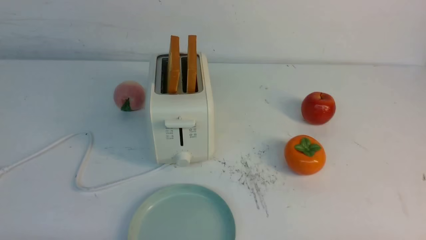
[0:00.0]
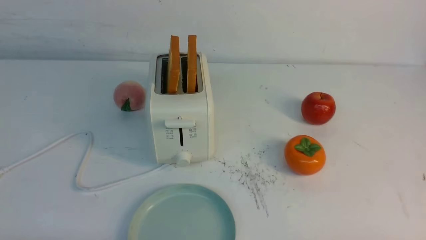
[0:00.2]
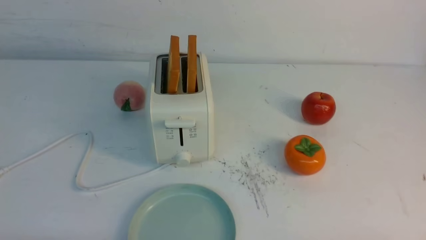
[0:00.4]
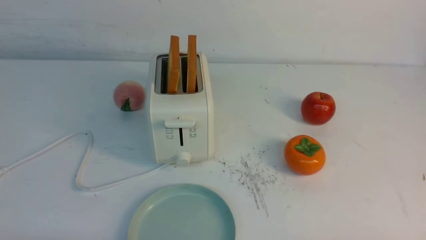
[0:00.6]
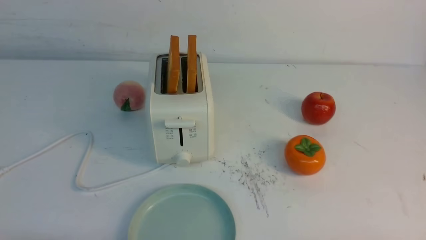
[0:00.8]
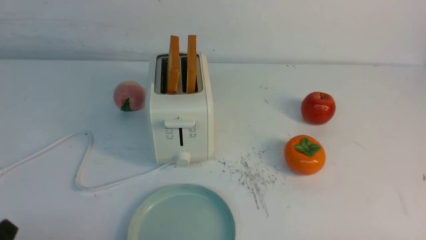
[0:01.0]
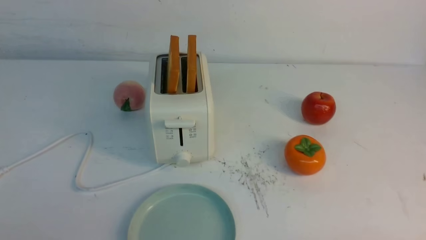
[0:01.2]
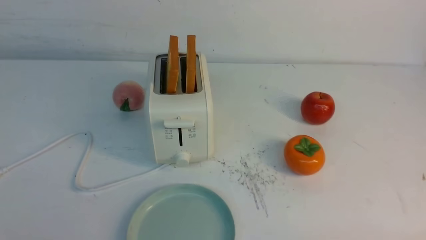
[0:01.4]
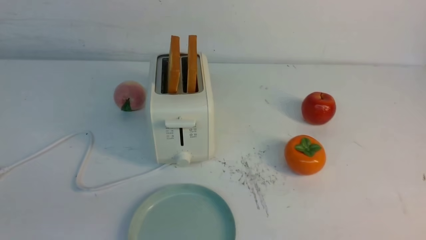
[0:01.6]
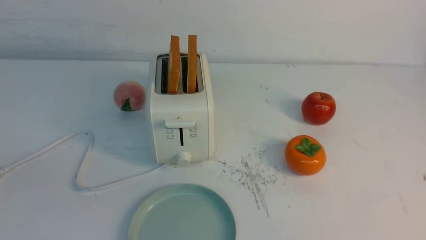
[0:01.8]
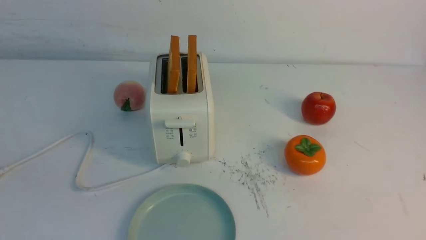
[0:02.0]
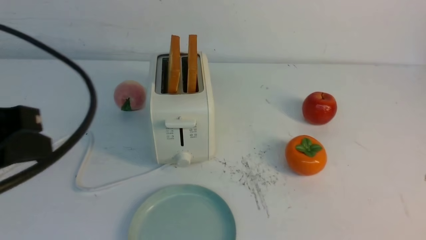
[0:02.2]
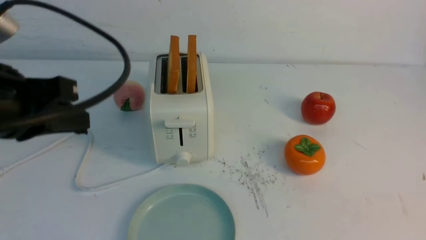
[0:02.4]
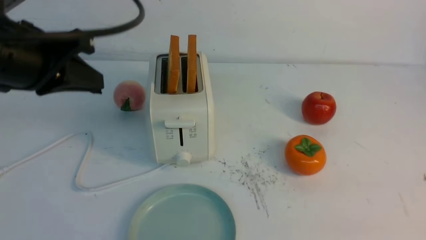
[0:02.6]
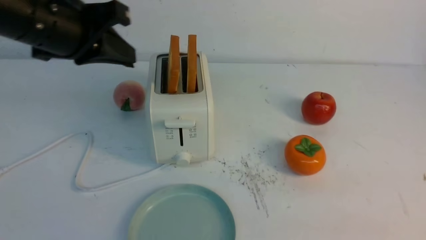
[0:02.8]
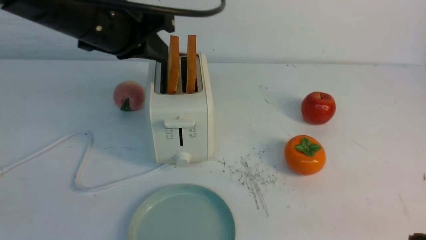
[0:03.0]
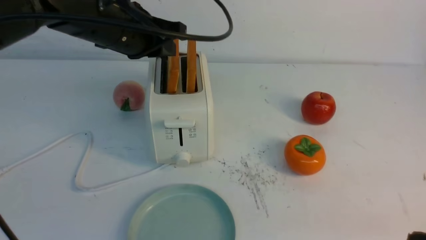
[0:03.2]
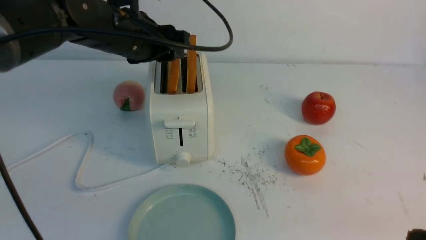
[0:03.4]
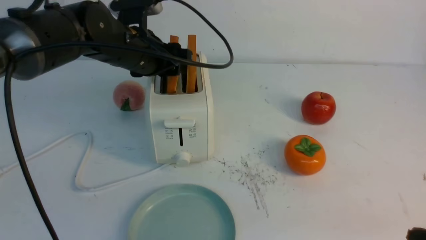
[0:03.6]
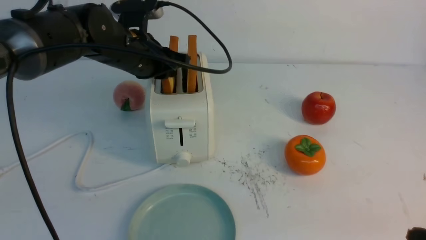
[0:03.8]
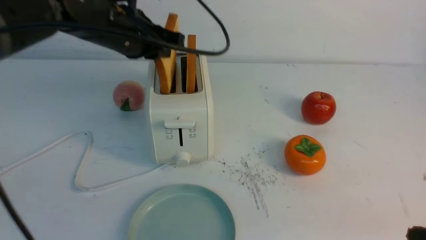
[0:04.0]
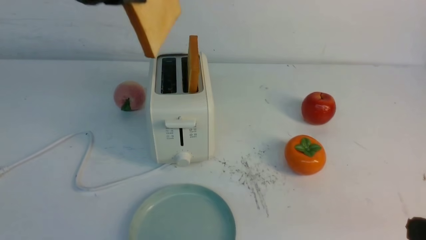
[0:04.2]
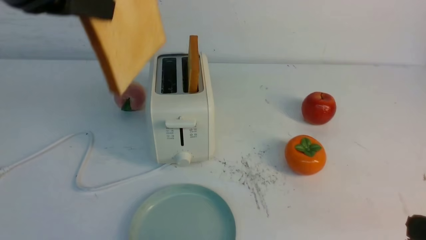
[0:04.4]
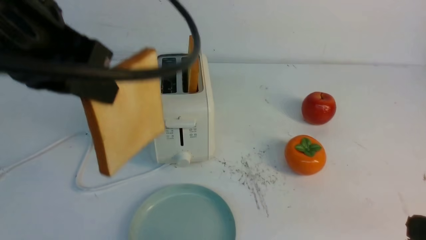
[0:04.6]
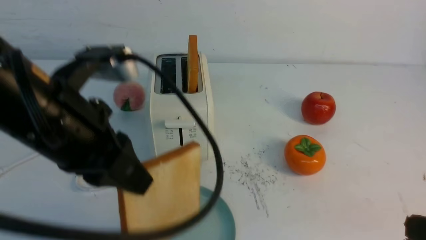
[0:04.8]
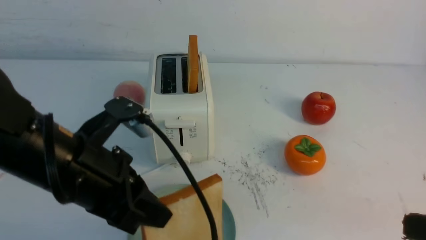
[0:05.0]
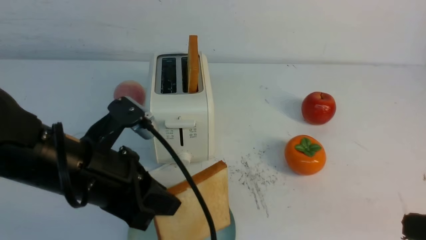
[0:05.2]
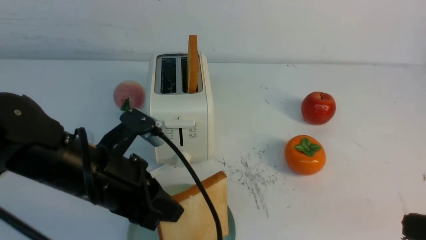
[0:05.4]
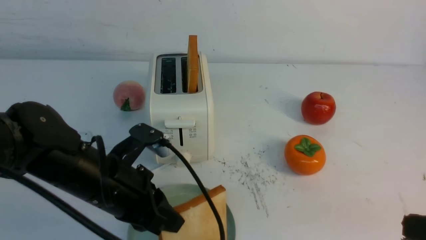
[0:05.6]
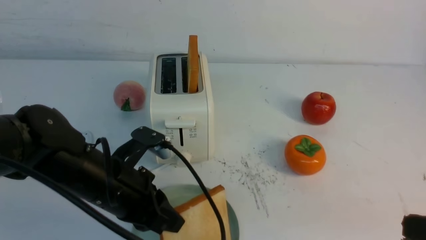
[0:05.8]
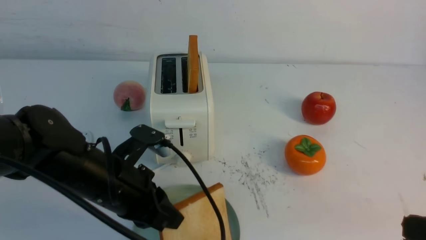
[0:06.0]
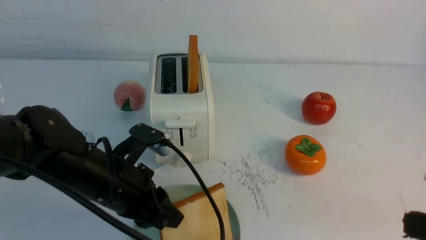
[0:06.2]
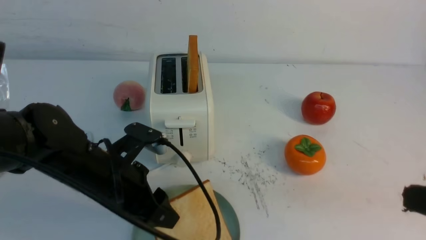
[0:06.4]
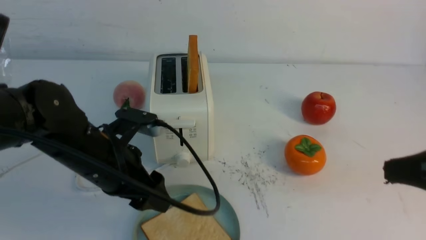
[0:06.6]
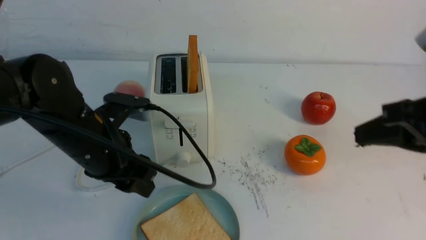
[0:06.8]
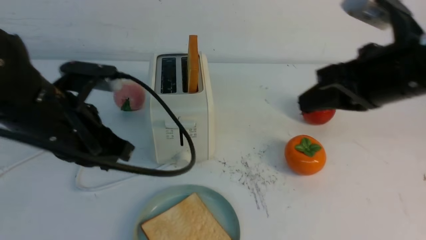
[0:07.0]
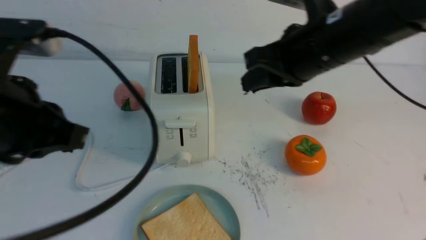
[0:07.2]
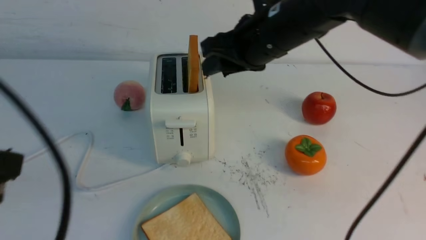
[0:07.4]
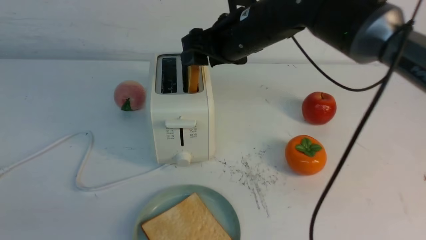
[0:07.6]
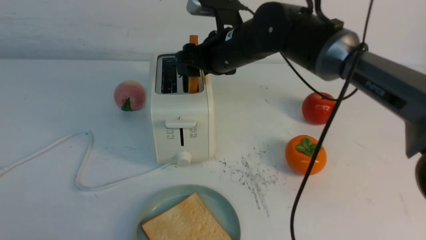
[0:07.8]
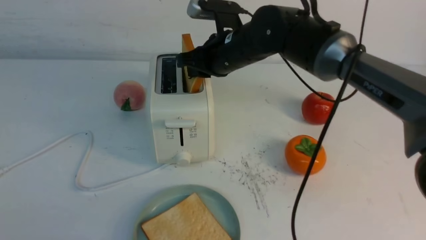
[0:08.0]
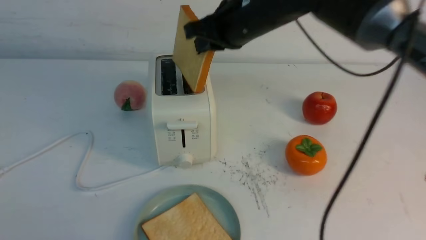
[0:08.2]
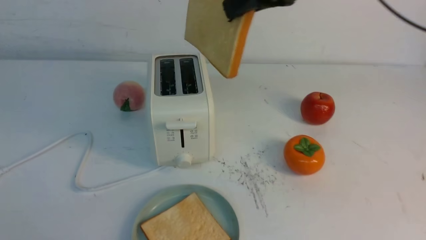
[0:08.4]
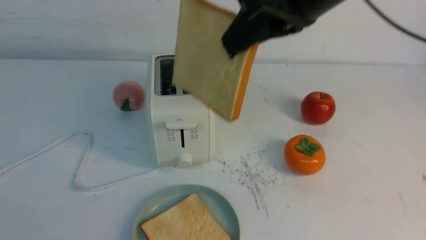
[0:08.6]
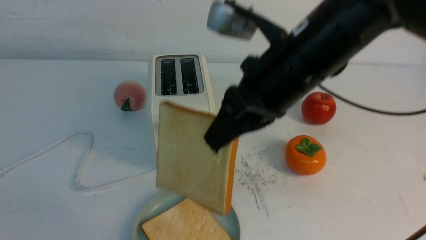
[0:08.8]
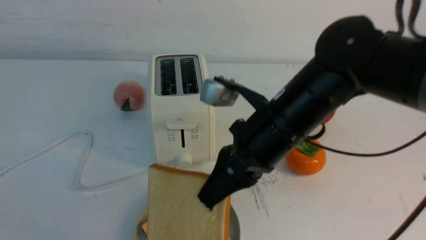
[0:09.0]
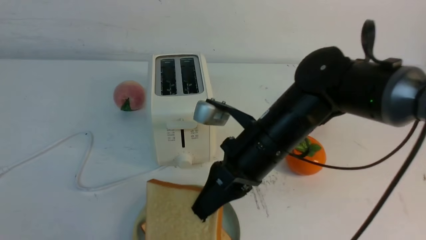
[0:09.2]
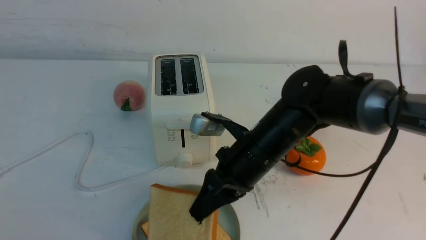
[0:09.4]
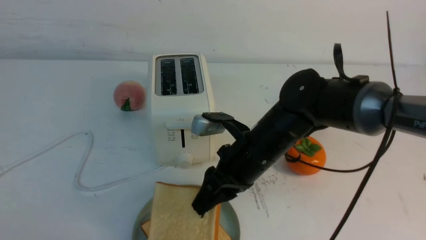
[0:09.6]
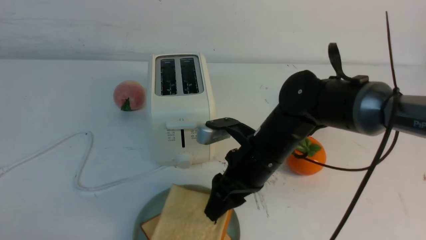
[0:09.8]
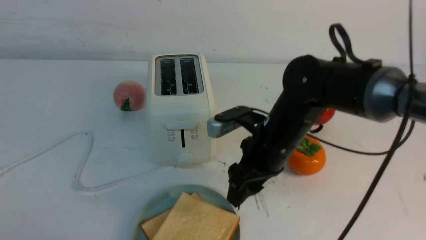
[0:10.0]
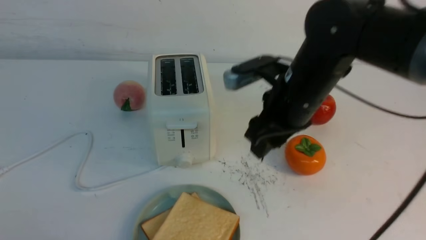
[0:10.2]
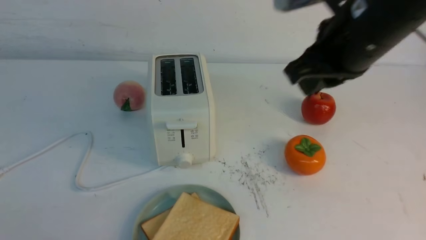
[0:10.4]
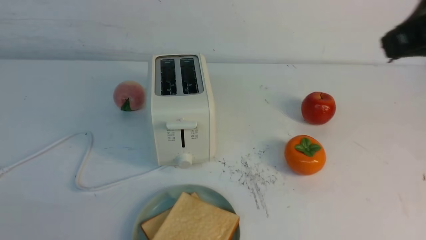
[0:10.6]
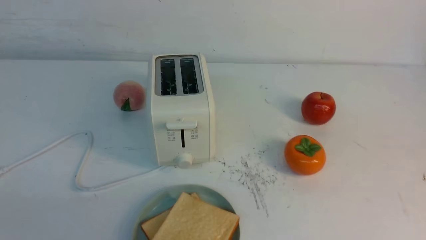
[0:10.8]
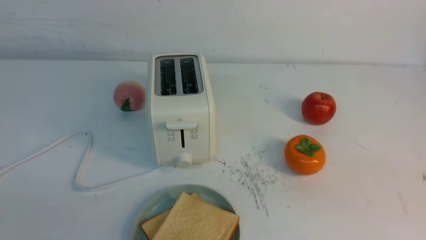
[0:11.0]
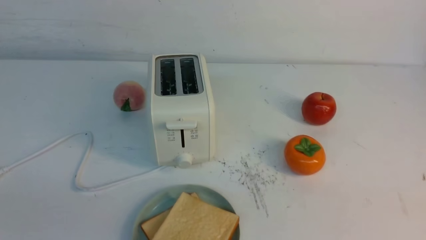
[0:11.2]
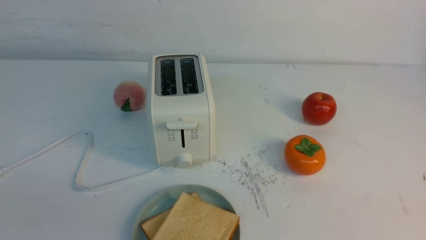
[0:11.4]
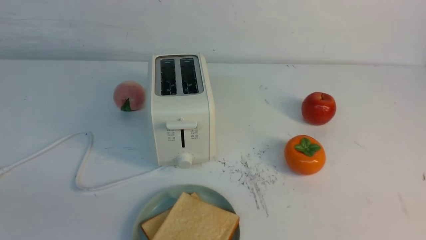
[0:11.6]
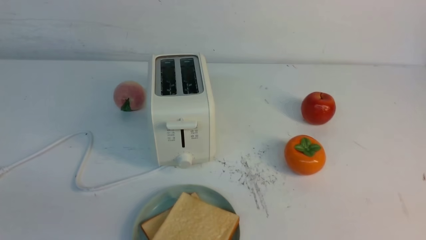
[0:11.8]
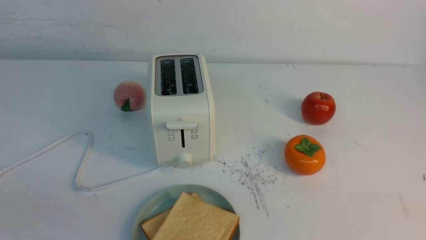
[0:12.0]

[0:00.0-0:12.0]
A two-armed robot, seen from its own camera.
Task of the whole recording: take toasted bread from bread machine on white table place on plate.
Step, 0:00.0 to 0:04.0: use the left arm to take out a slice of bread.
Step, 0:04.2 to 0:06.8: use the left arm to put a slice of bread into the empty plate.
Step, 0:07.0 to 0:08.2: use the right arm to take out a slice of bread.
Step, 0:08.4 to 0:10.0: use the right arm to put a slice of bread into the plate.
0:01.6 to 0:03.0: The right gripper is displaced upward by approximately 10 cm, and closes its fingers. The left gripper is displaced forward by roughly 30 cm.
0:03.0 to 0:04.4: The left gripper goes about 10 cm backward and upward, and opens and closes again.
0:04.4 to 0:06.0: The left gripper is displaced downward by approximately 25 cm.
0:06.0 to 0:07.6: The right gripper goes roughly 40 cm forward and to the left, and opens its fingers. The left gripper moves backward, upward and to the left, approximately 25 cm, and closes its fingers.
0:07.6 to 0:09.0: The right gripper goes approximately 15 cm backward, and closes up.
0:09.0 to 0:10.4: The right gripper travels upward and to the right by approximately 15 cm, and opens, then closes again.
0:10.4 to 0:12.0: The right gripper moves backward, downward and to the right, approximately 30 cm.

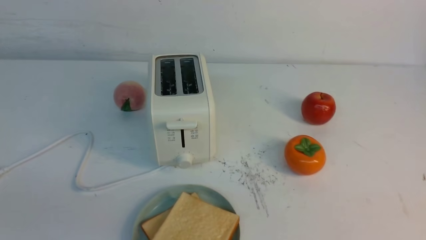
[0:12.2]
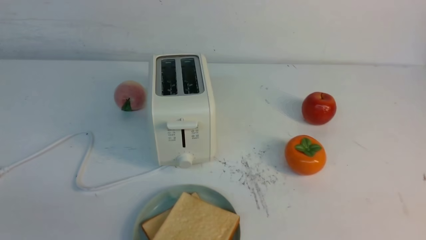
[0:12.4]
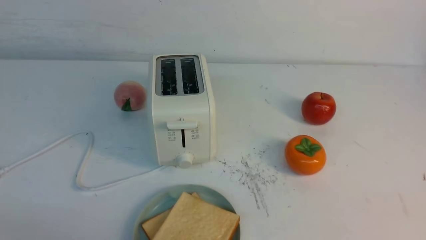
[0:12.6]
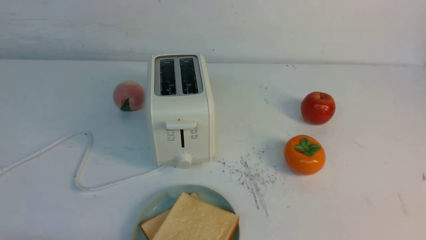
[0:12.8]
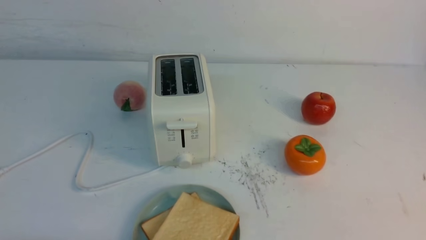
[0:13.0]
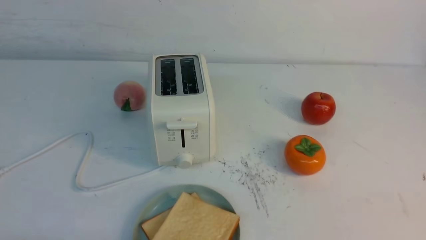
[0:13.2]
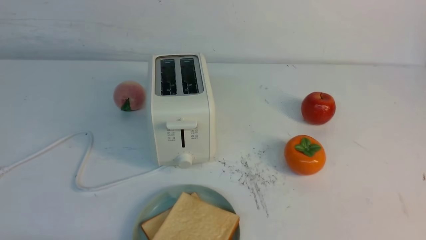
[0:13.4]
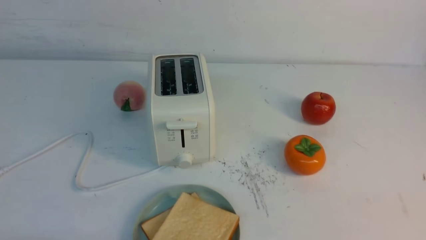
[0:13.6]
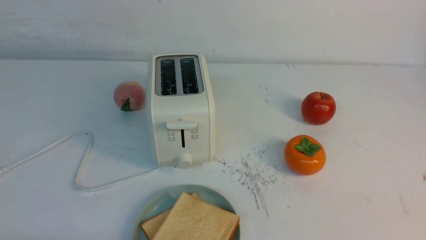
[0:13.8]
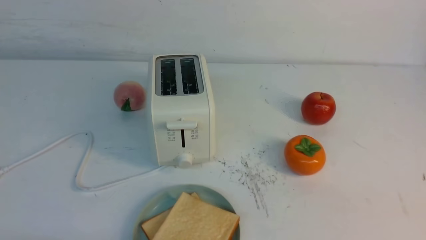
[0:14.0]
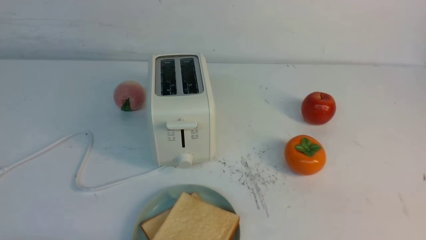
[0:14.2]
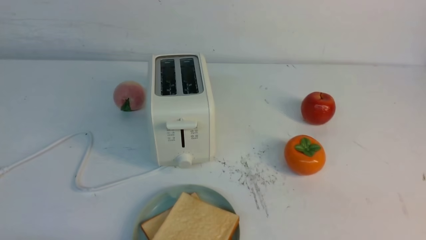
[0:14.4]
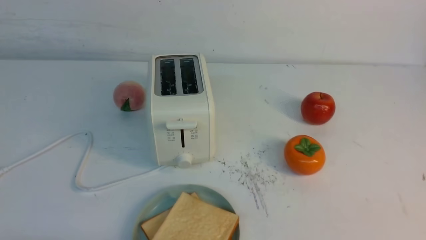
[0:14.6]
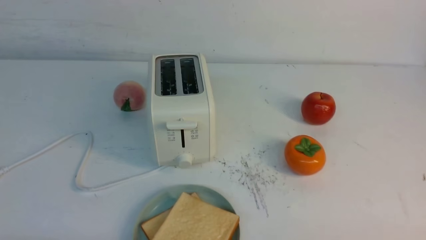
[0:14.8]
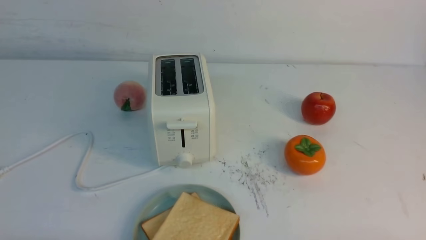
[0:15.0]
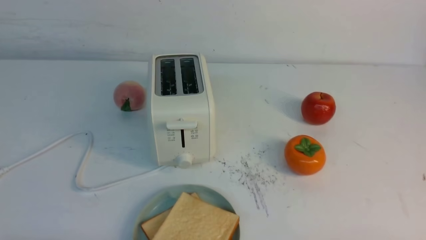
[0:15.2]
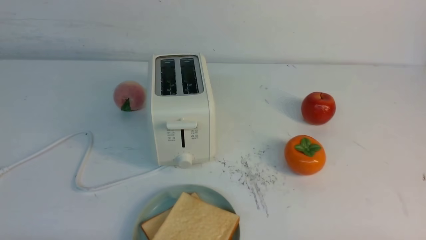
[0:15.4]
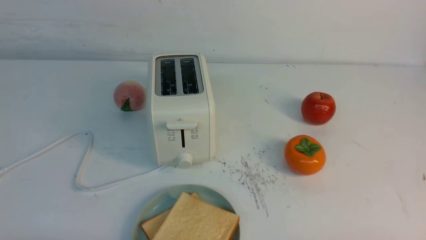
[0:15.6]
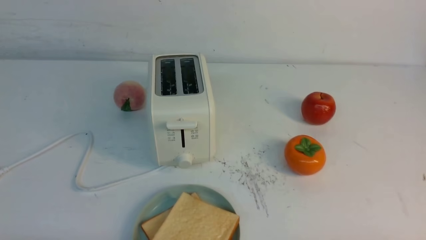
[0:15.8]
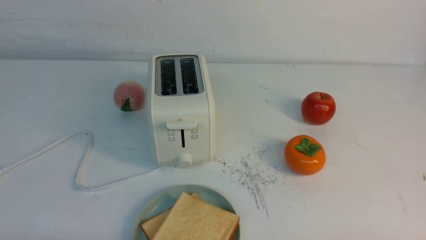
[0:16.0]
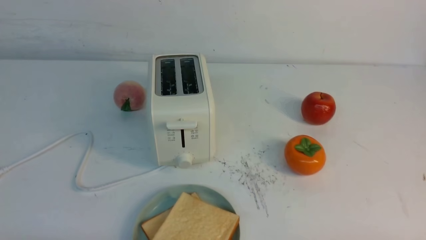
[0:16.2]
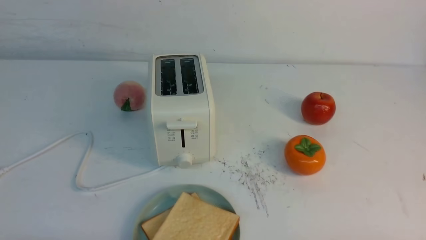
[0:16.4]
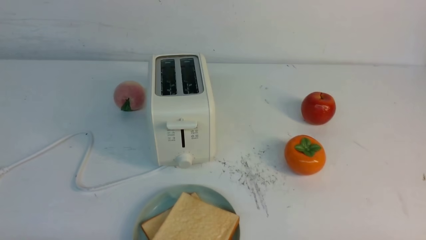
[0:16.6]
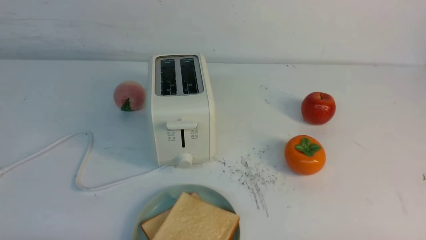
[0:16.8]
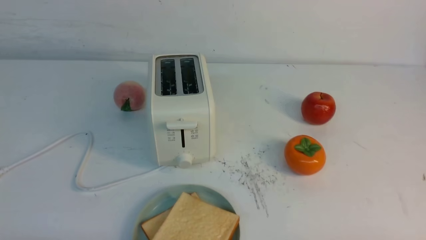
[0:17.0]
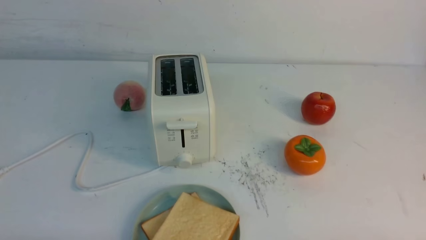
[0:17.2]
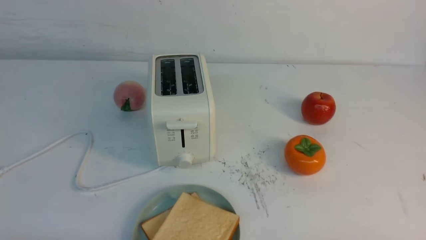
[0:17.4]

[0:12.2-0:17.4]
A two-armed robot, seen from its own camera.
Task of the whole recording: take toasted bread from bread machine on white table place on plate.
0:15.6 to 0:17.4: Both grippers stay about where they are.
